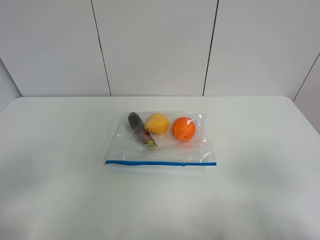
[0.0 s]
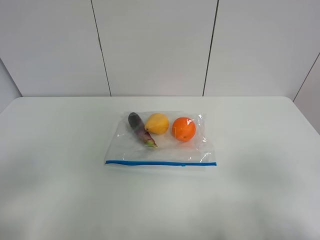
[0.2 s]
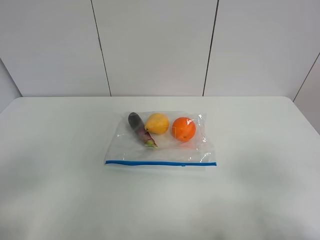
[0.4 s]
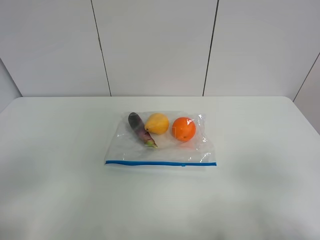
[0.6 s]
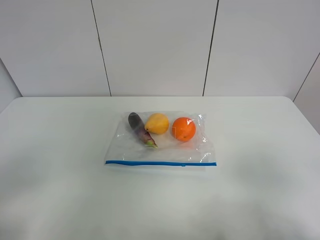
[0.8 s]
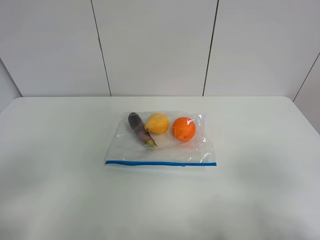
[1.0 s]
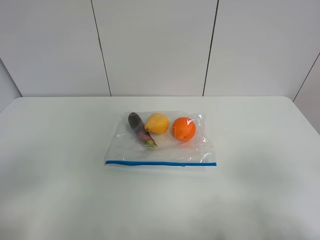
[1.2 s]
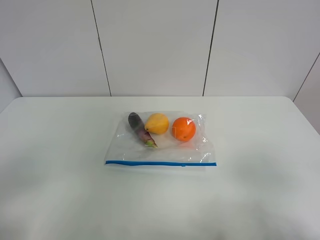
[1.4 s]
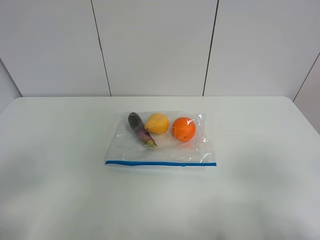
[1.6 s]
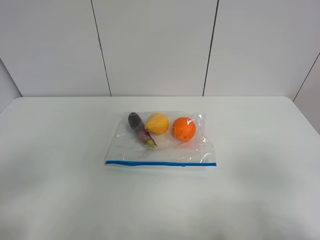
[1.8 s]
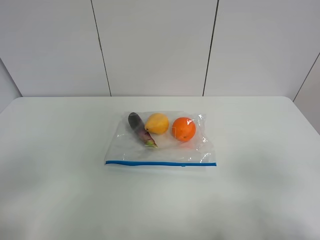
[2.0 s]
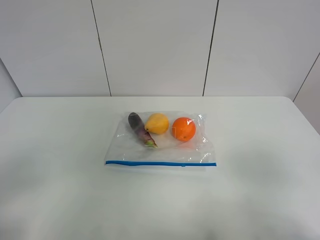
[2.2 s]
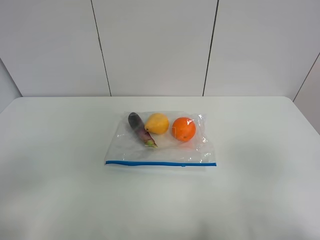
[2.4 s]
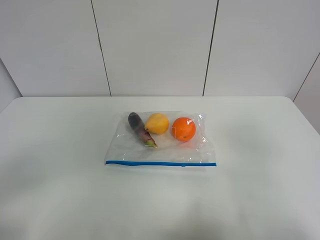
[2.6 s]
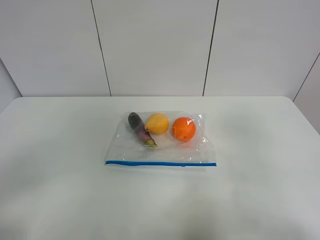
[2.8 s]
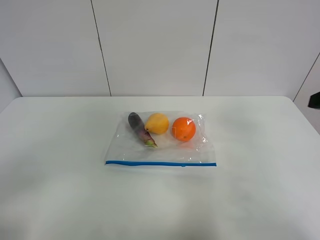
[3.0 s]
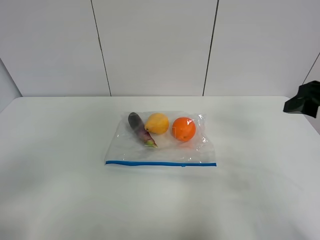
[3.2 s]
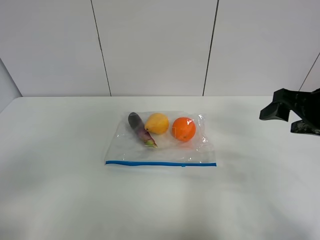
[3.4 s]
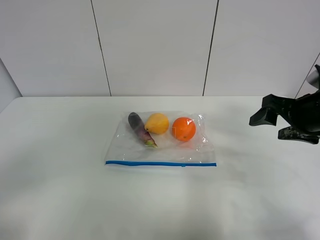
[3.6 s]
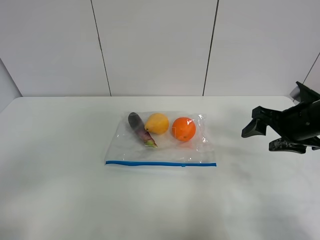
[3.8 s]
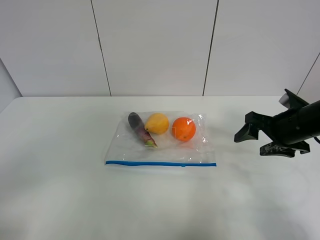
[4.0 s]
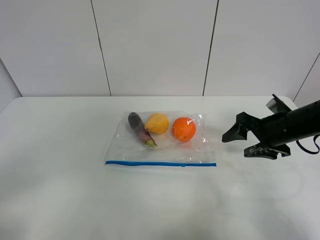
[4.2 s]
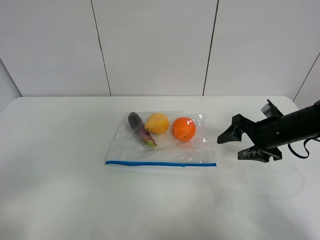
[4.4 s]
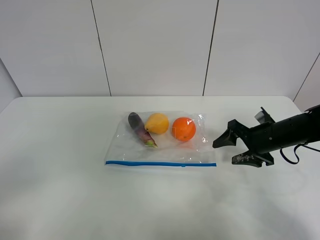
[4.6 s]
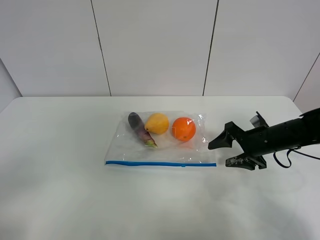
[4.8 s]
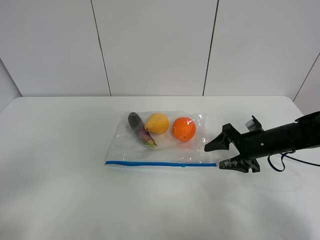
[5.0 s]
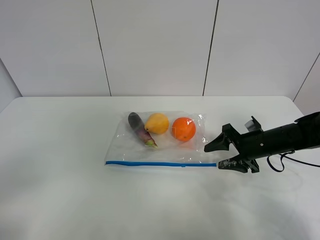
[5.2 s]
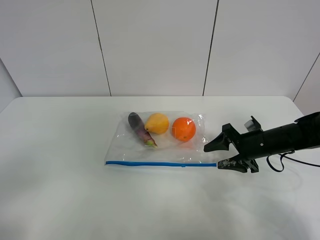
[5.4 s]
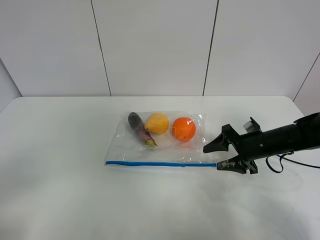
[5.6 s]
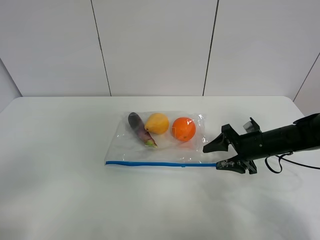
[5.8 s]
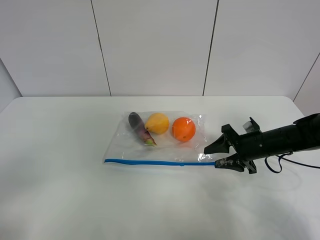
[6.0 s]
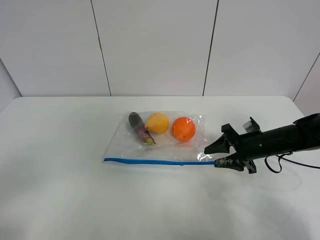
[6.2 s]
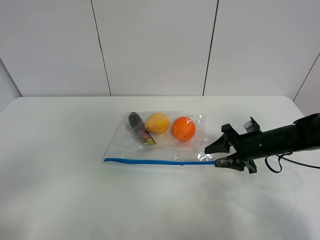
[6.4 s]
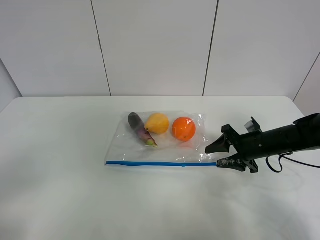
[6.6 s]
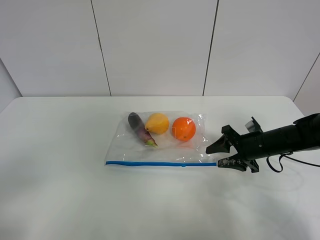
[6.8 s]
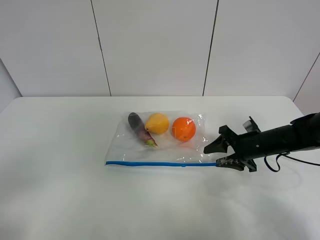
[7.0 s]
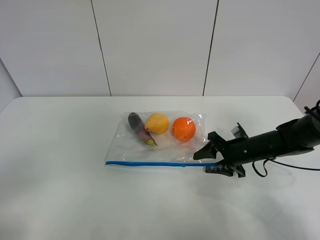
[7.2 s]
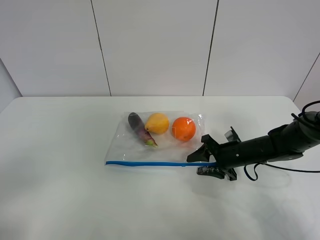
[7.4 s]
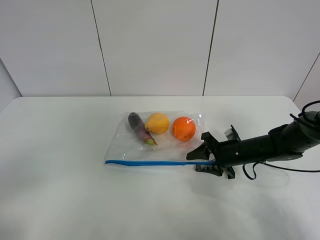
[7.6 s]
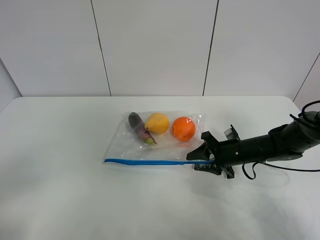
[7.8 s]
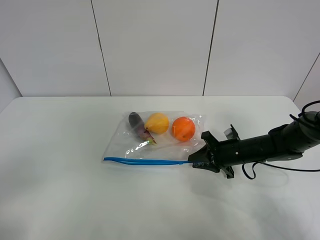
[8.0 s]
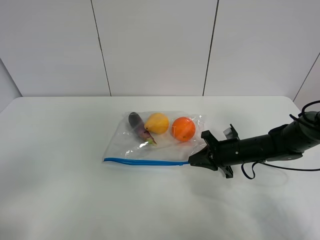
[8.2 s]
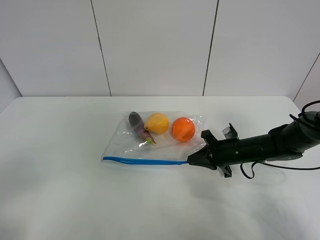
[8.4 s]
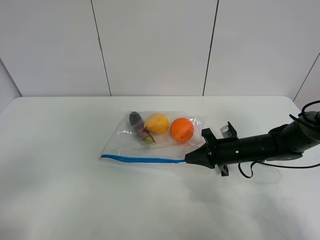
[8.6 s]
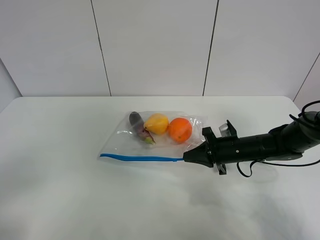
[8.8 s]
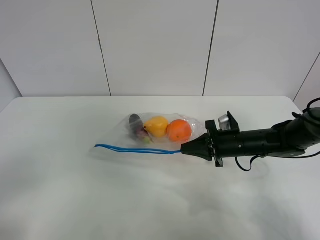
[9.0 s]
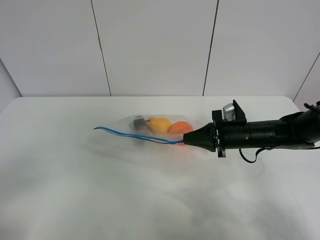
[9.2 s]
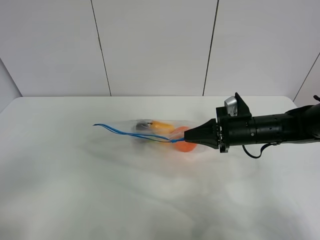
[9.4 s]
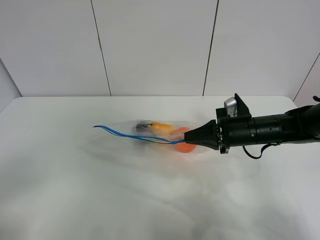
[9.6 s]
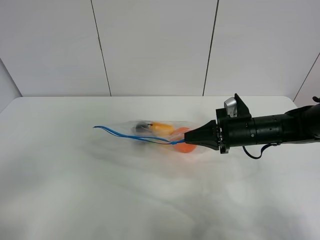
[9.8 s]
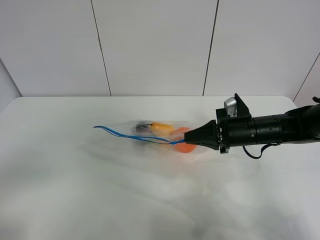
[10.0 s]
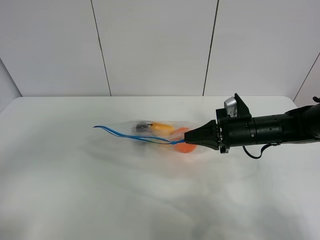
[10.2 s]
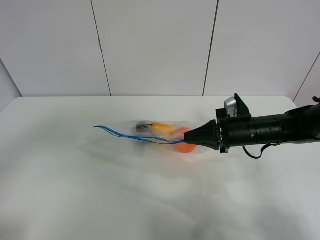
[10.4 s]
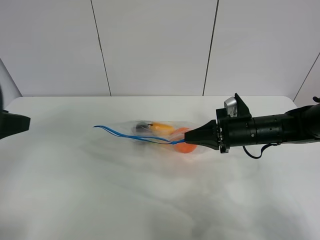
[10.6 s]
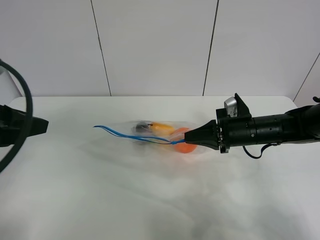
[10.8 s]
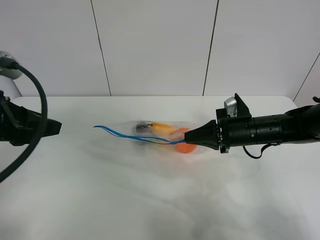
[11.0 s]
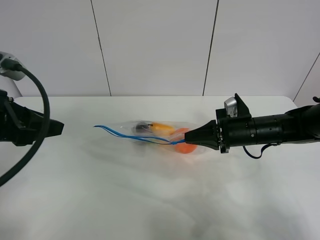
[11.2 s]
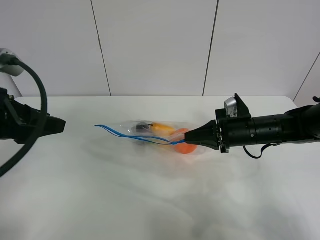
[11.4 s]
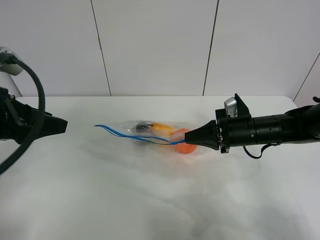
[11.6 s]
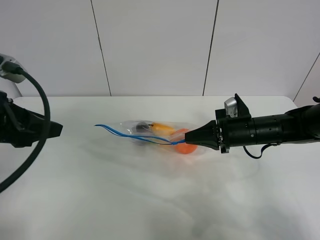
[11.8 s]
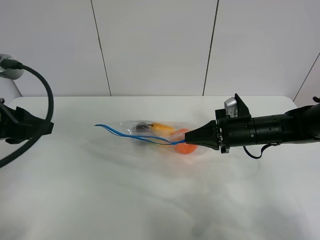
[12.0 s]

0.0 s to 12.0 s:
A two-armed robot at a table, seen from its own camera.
Step, 0.0 to 8.0 s: Grasp the fruit bag with right gripper.
Step, 8.2 to 9.8 s: Lift the fruit bag with your right gripper.
0.0 to 1.6 s: The two grippers keep their place.
1.6 to 3.0 s: The right gripper heads forward, covering some 15 cm.
3.0 to 4.4 s: The right gripper is displaced downward and forward by about 20 cm.
4.4 to 6.0 s: The right gripper is displaced downward by some 5 cm.
6.0 to 7.6 s: The right gripper changes place by some 5 cm.
7.6 to 9.0 s: The right gripper closes up.
9.0 to 10.4 s: The left gripper goes approximately 10 cm forward; the right gripper shifts by roughly 5 cm.
10.4 to 12.0 s: The left gripper moves forward, approximately 10 cm.

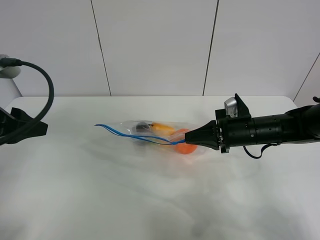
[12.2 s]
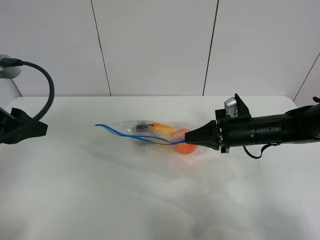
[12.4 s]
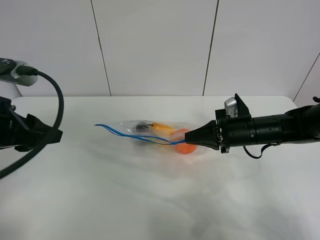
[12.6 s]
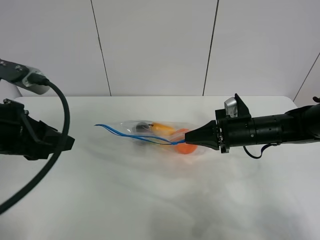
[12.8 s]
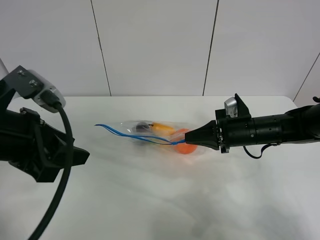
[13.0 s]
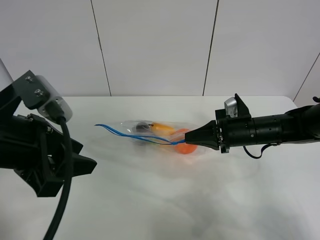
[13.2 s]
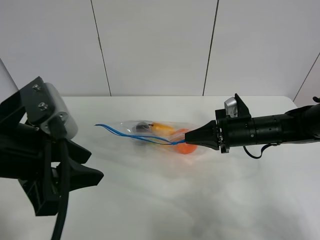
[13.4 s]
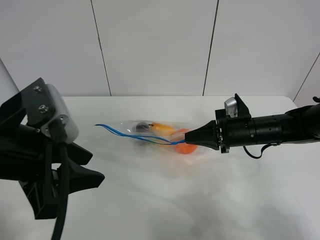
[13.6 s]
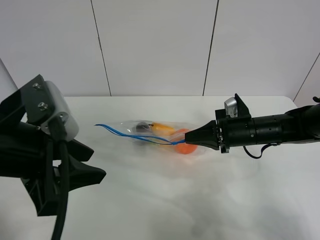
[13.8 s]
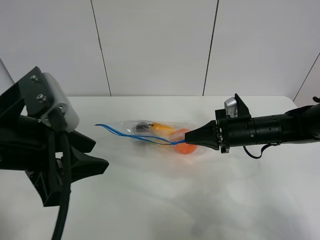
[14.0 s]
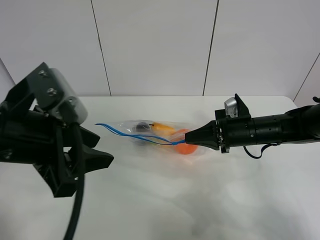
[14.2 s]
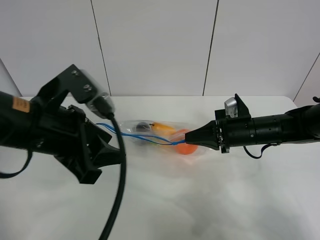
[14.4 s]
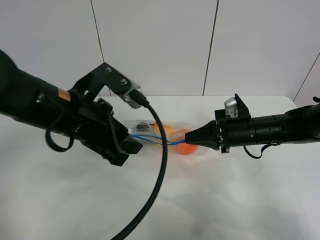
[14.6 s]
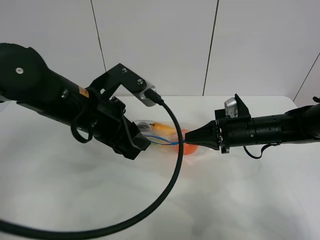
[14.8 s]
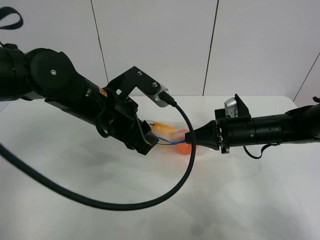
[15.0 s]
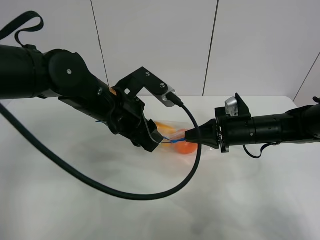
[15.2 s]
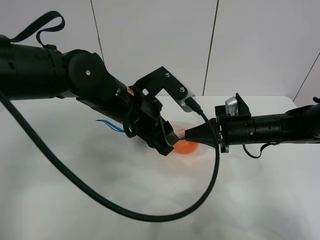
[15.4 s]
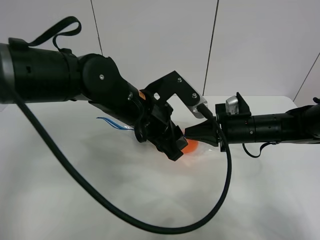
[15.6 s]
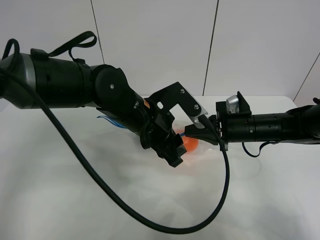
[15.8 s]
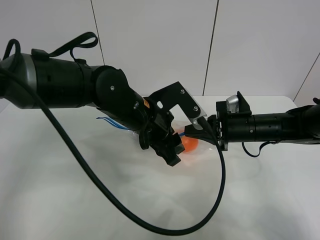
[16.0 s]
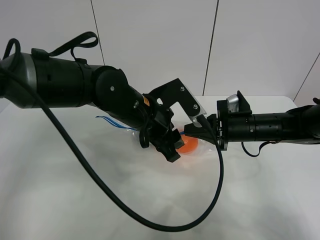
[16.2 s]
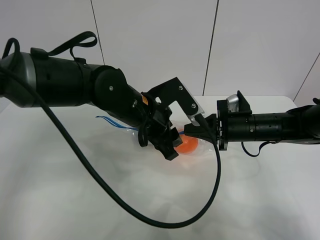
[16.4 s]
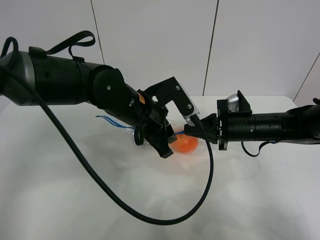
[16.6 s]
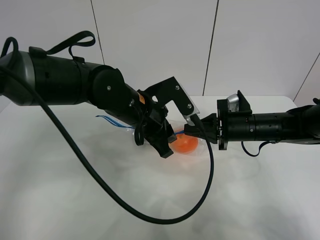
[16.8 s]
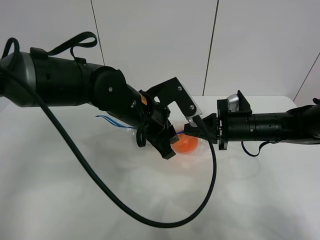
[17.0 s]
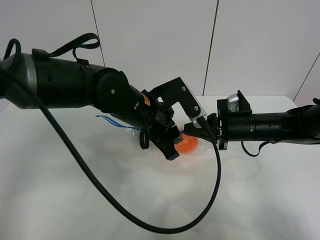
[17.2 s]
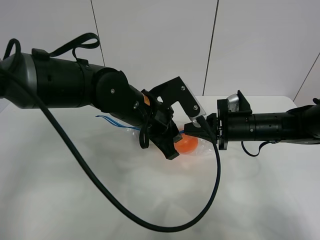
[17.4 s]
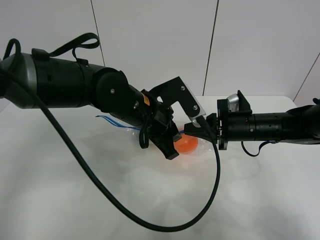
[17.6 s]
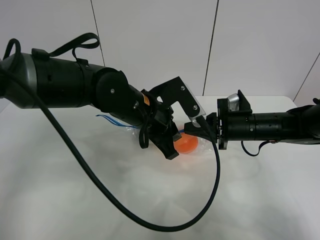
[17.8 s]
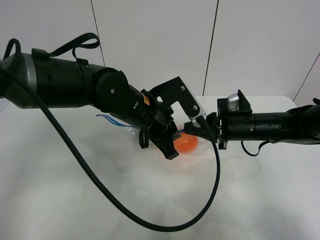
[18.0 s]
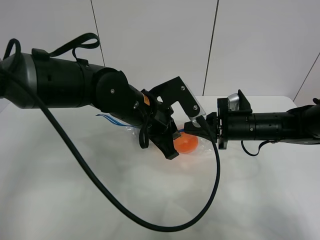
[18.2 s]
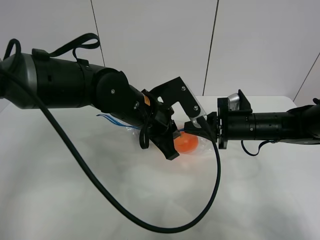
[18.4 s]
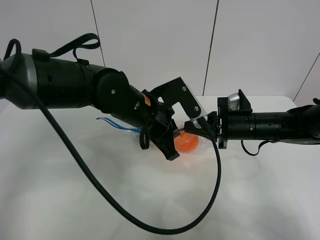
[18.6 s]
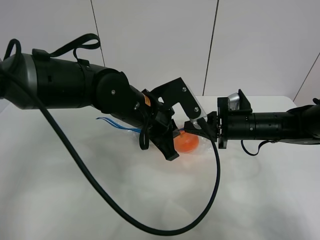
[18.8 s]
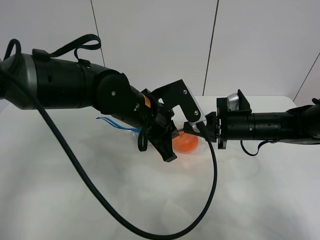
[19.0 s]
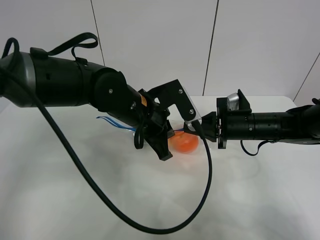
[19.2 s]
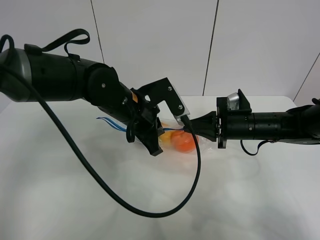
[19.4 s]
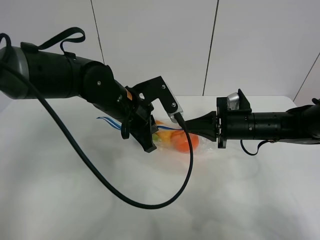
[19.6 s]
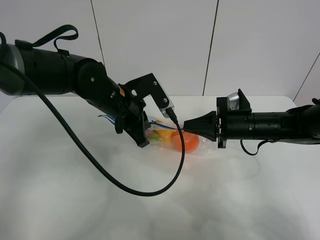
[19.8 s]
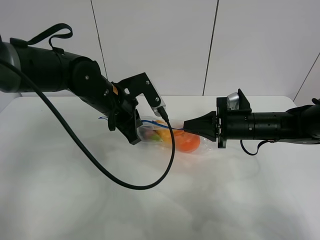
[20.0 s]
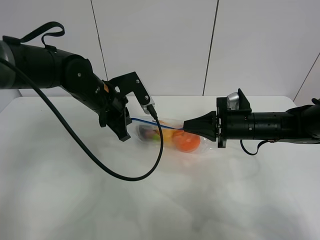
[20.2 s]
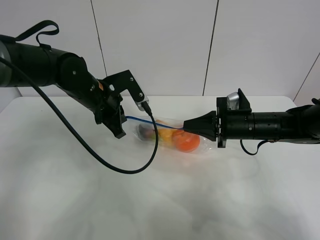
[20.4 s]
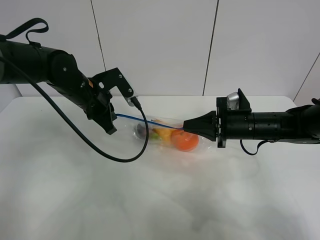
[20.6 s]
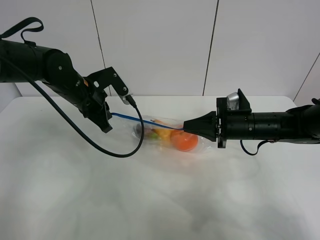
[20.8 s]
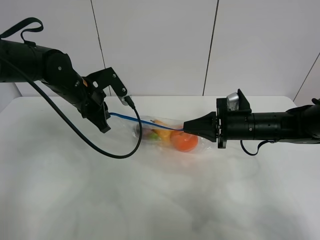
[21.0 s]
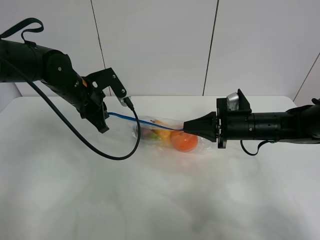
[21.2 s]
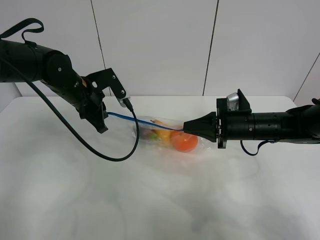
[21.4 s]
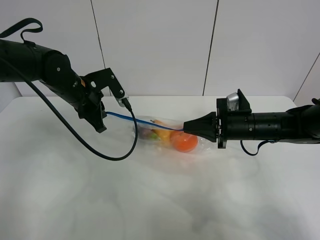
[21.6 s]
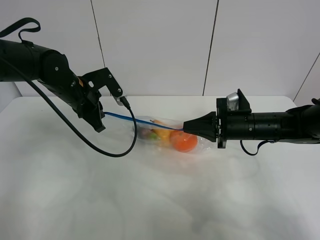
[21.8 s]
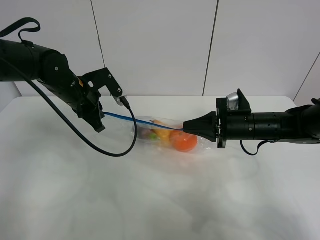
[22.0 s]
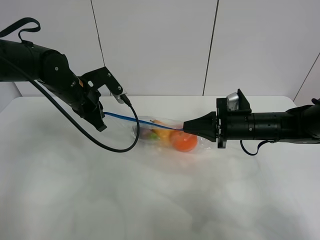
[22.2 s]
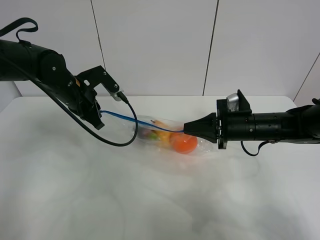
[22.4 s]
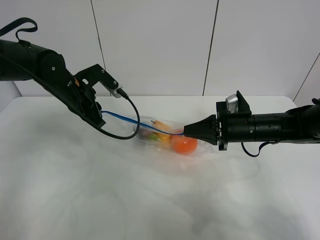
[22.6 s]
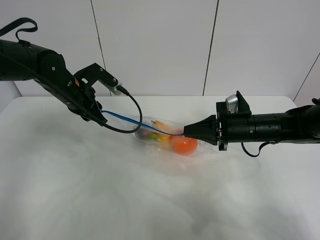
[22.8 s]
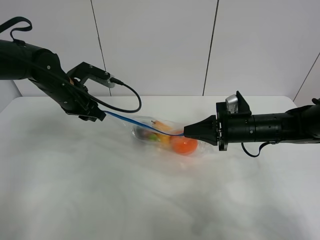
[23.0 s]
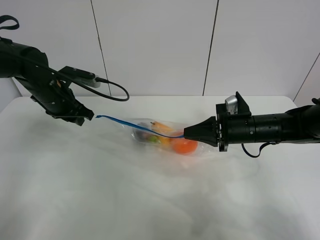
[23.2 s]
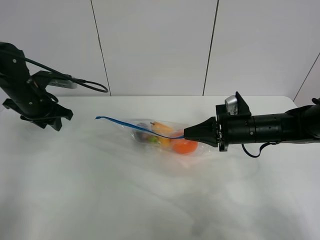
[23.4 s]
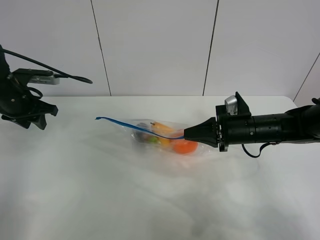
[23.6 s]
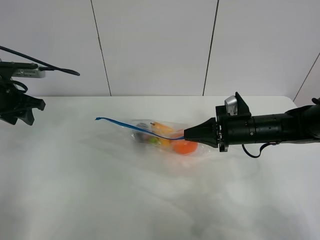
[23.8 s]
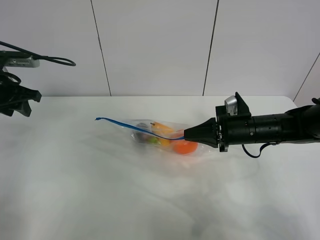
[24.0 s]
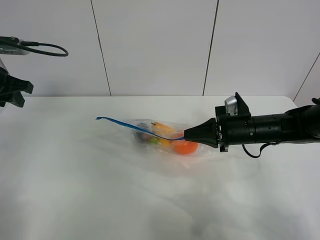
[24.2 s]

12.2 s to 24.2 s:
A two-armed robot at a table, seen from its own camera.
Step, 12.2 to 23.0 s: Pull the fruit bag with left gripper.
12.2 to 13.8 s: The left gripper goes about 10 cm to the right.
13.8 to 15.2 s: The left gripper travels forward, to the right and downward by approximately 15 cm.
15.2 to 16.6 s: There are only small adjustments of the grippers.
16.6 to 18.2 s: The left gripper closes up.
18.2 to 19.8 s: The left gripper goes some 5 cm to the left, and closes its fingers.
19.8 to 21.2 s: The left gripper goes approximately 10 cm to the left.
21.2 to 22.6 s: The left gripper opens.
22.6 to 24.2 s: The left gripper heads to the left and upward, covering some 15 cm.
